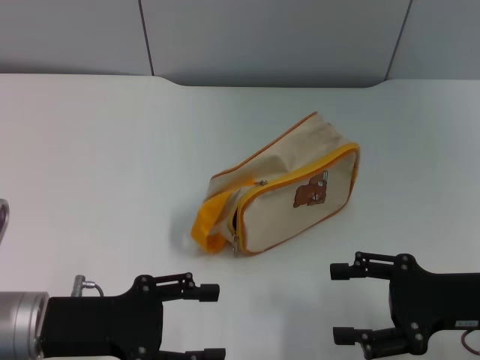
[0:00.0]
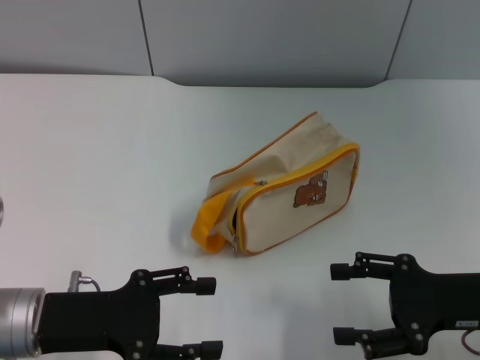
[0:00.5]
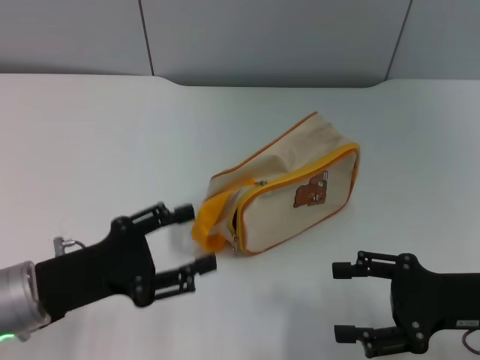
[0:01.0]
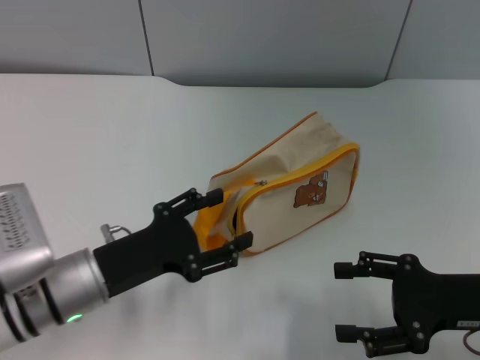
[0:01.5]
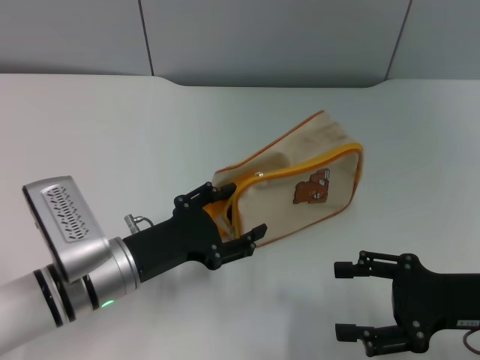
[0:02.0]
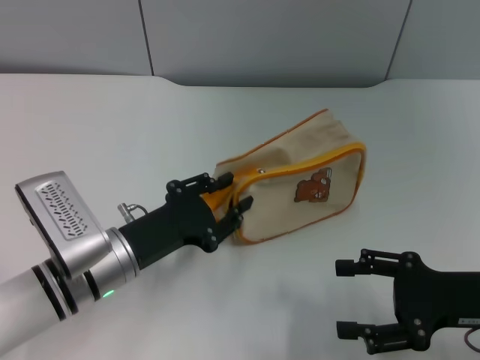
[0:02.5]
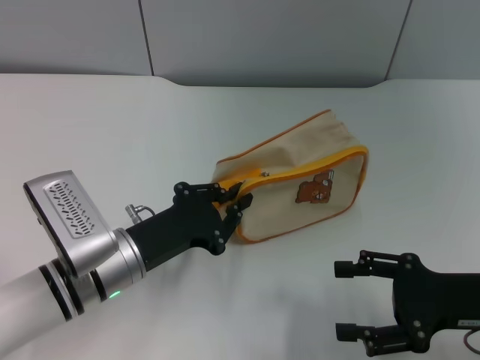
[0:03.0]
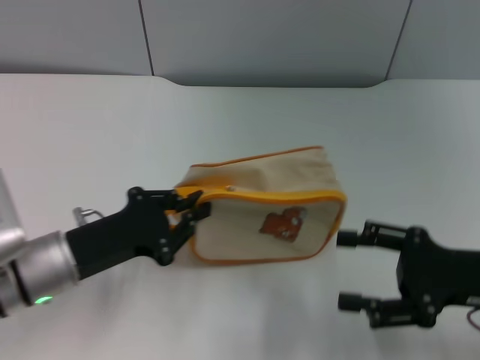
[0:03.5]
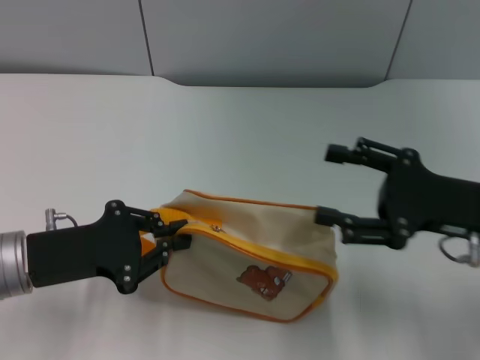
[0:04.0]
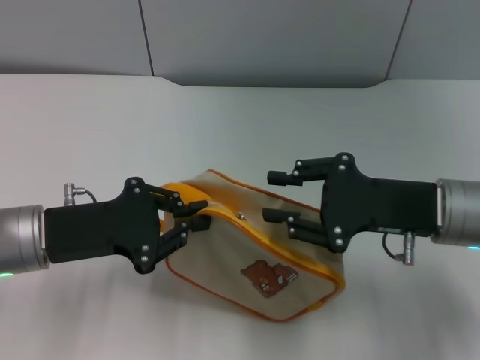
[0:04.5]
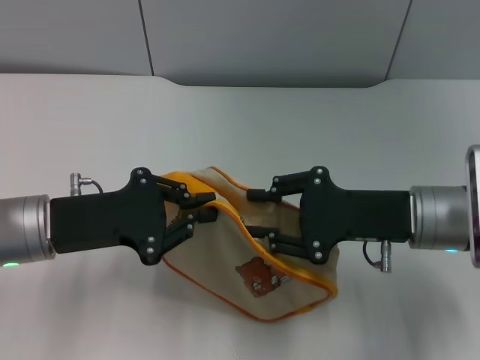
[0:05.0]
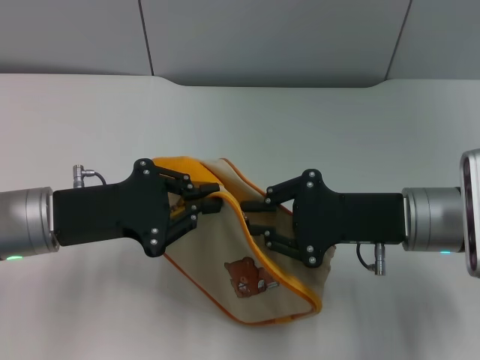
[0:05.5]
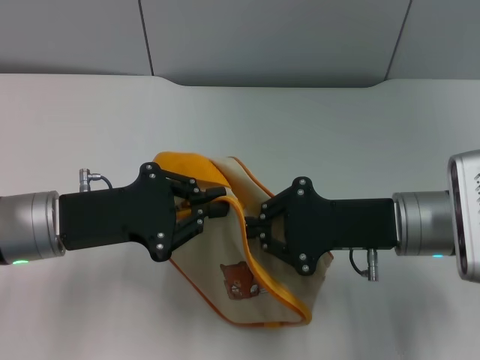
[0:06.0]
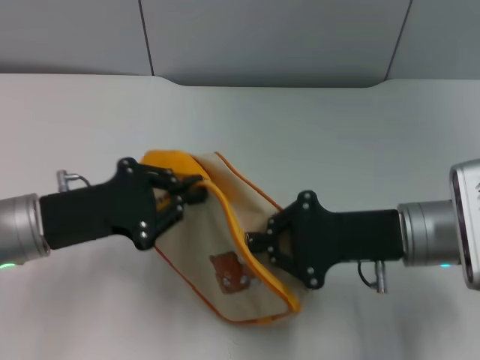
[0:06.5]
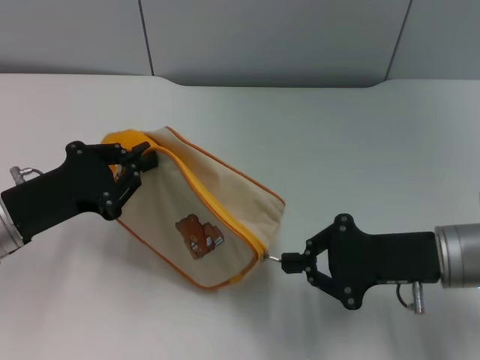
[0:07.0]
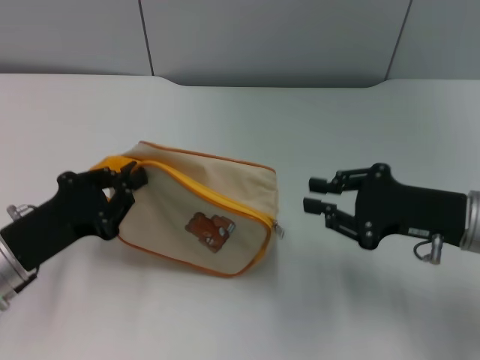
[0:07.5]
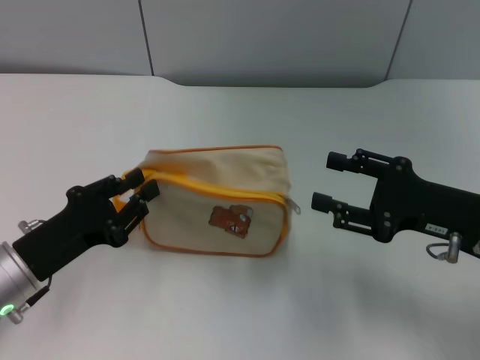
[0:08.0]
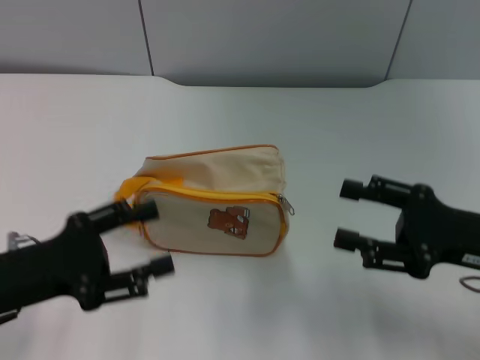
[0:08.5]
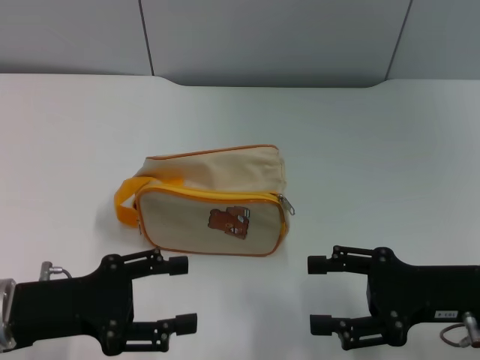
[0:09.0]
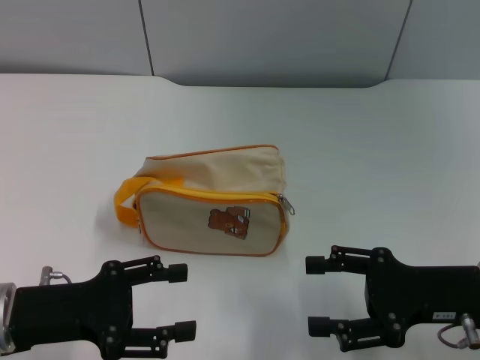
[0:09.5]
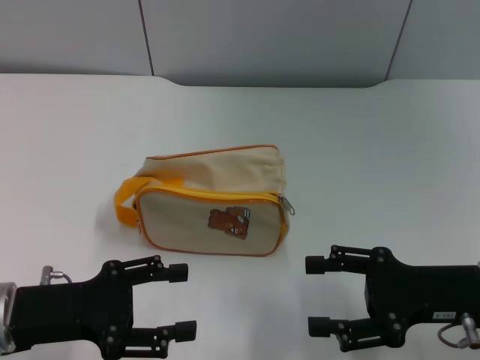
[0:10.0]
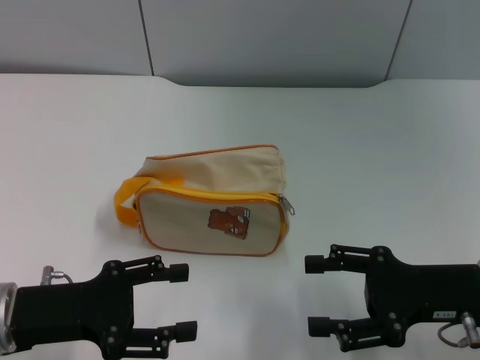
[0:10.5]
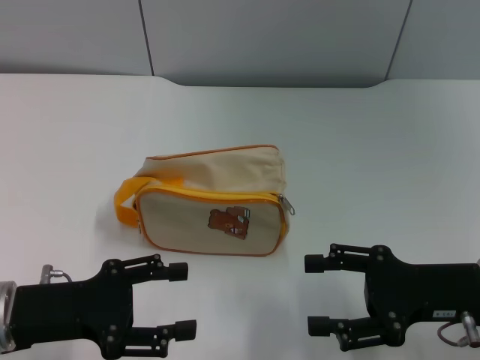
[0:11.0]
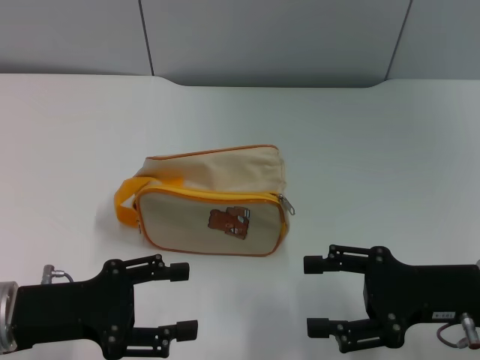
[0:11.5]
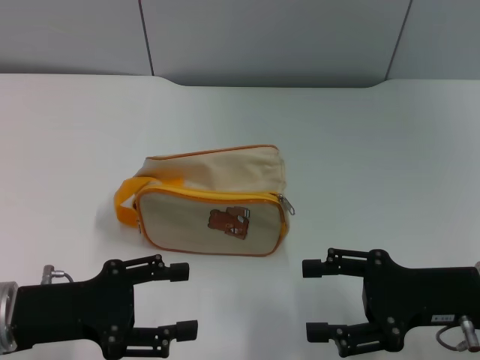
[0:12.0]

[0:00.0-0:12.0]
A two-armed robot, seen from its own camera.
Step, 0:00.0 to 0:04.0: Pick up the bag with left gripper.
Step, 0:04.5 to 0:07.5: Unzip the zipper of bag with right gripper.
0:00.0 to 0:02.0: The left gripper moves to the right, approximately 5 cm.
0:02.0 to 0:04.0: The left gripper goes approximately 10 cm to the left and upward, and closes up; the right gripper moves roughly 5 cm.
0:04.0 to 0:06.0: The right gripper is displaced to the left by approximately 10 cm, and closes its fingers.
0:06.0 to 0:08.0: The left gripper shifts some 5 cm downward. The right gripper goes some 10 cm to the right, and opens.
0:08.0 to 0:10.0: The left gripper opens its fingers.
0:10.0 to 0:12.0: Neither gripper changes place.

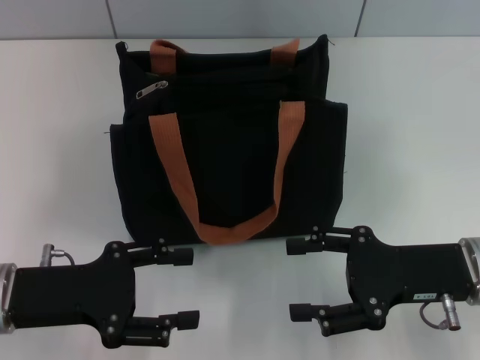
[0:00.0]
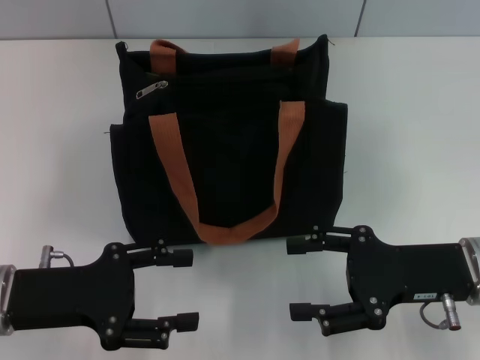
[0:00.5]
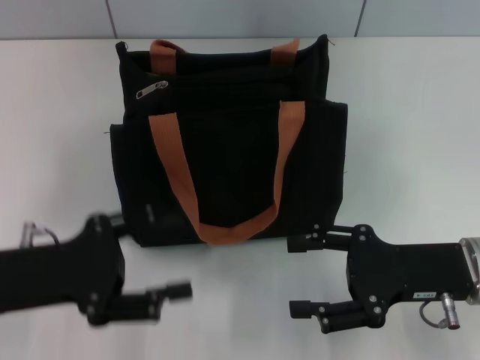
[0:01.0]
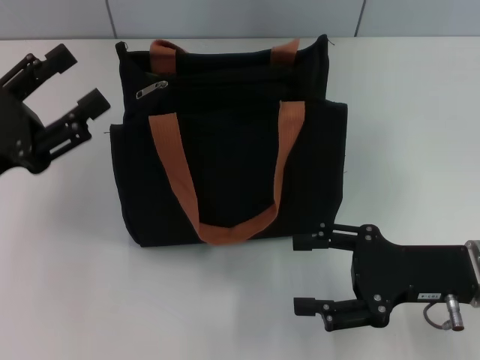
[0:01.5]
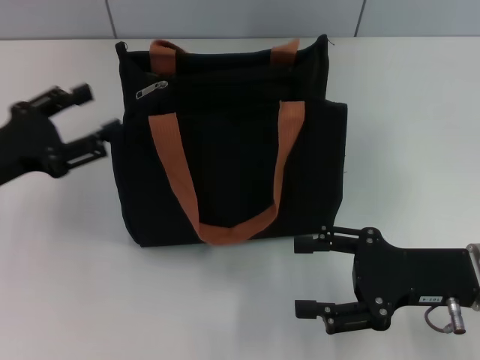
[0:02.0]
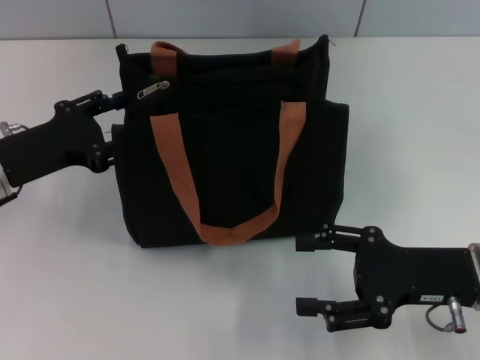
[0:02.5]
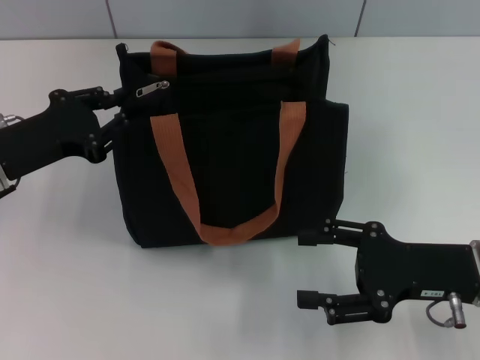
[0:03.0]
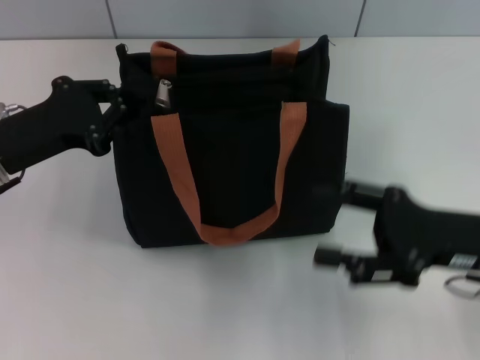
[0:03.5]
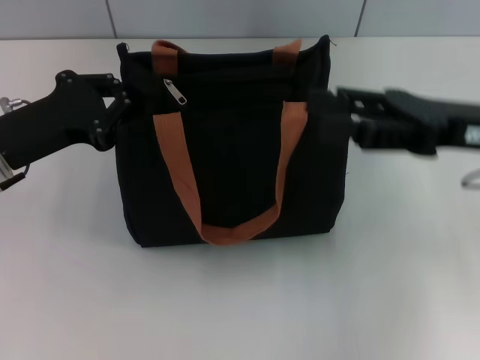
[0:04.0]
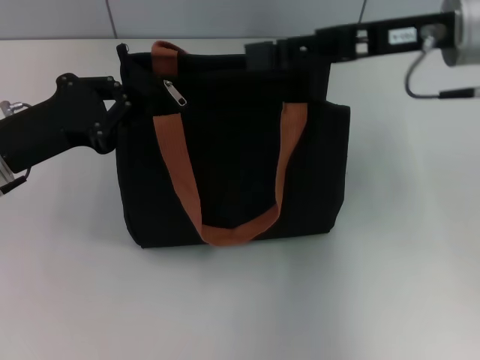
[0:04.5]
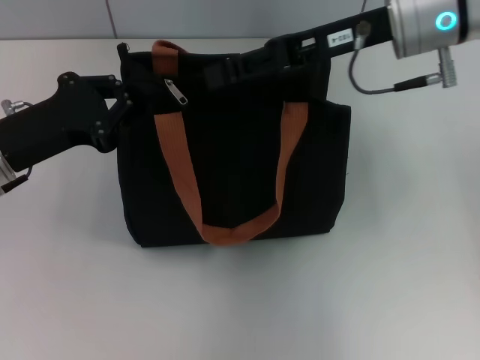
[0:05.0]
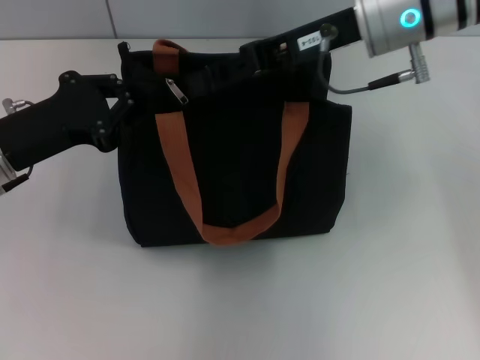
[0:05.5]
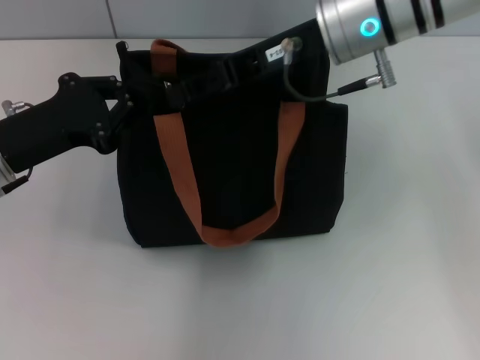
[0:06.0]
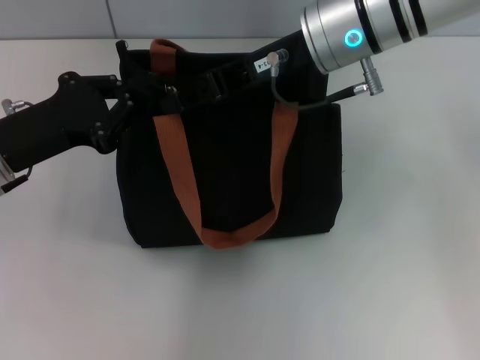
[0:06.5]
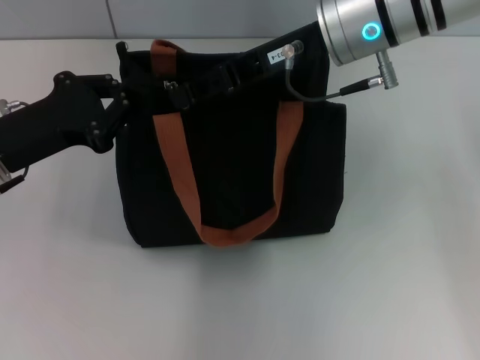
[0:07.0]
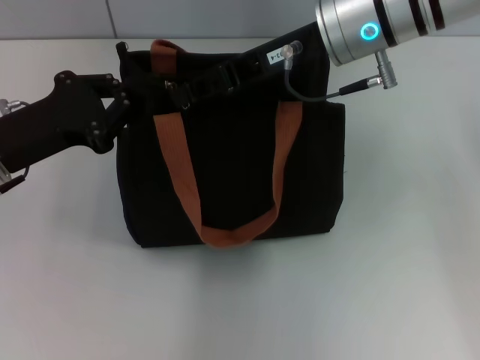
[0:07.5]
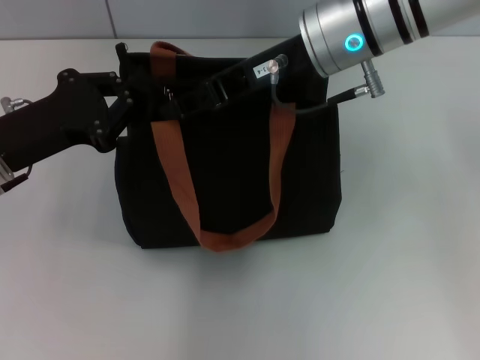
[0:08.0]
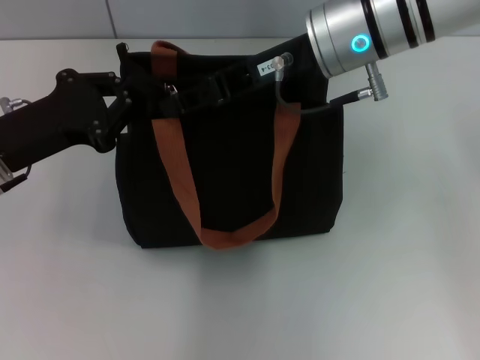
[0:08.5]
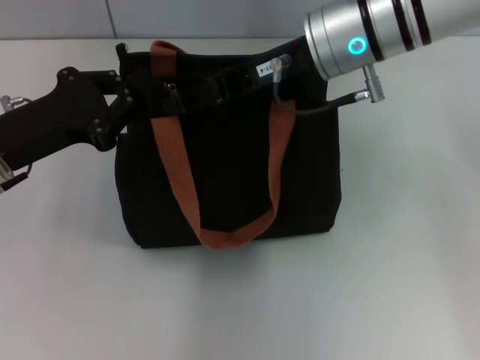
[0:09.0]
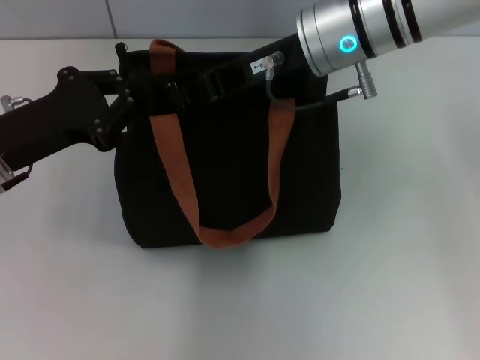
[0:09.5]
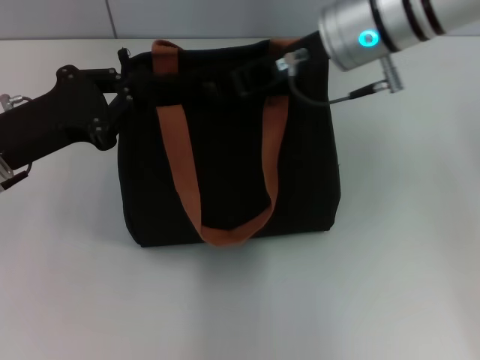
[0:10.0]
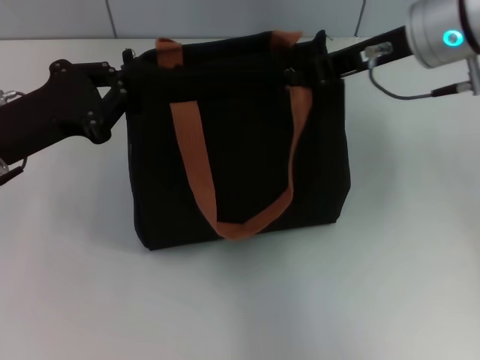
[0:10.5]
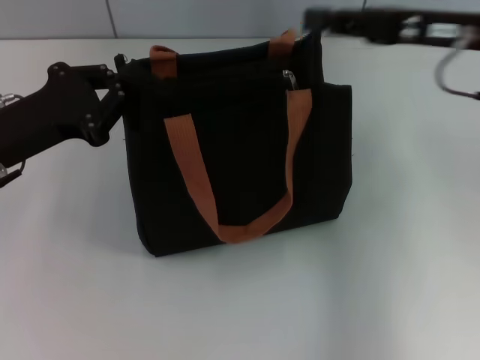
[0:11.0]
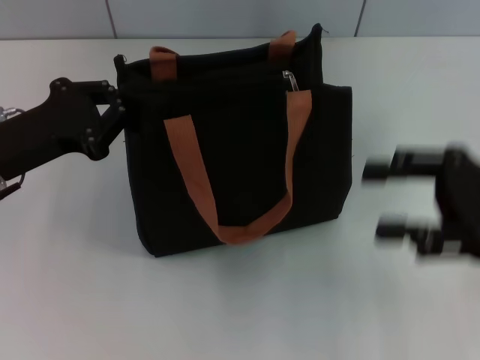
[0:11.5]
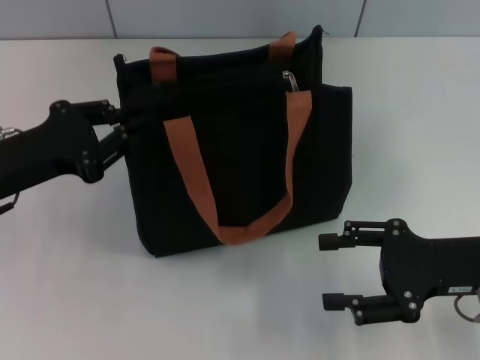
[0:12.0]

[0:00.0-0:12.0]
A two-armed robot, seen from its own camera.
Step, 0:00.0 to 0:10.5: Pull up the zipper with your right hand.
0:00.0 to 0:02.0: The left gripper heads forward, covering some 5 cm.
0:02.0 to 0:04.0: The left gripper closes up. The right gripper heads upward and forward, covering about 10 cm.
0:04.0 to 0:06.0: The right gripper moves to the left and forward, some 15 cm, and closes.
0:06.0 to 0:10.0: The grippers stay close to where they were, moving slightly.
0:10.0 to 0:12.0: The right gripper shifts some 25 cm backward, to the right and downward, and opens up.

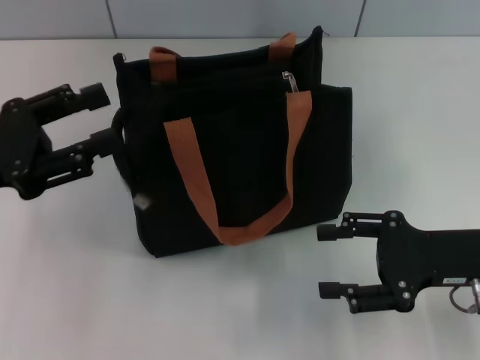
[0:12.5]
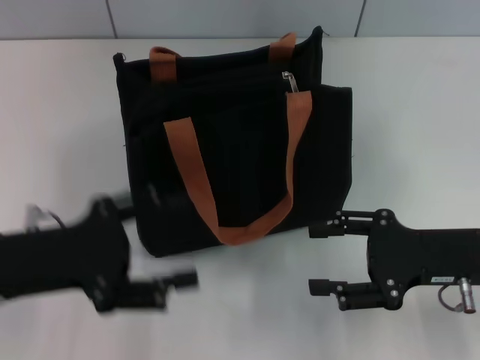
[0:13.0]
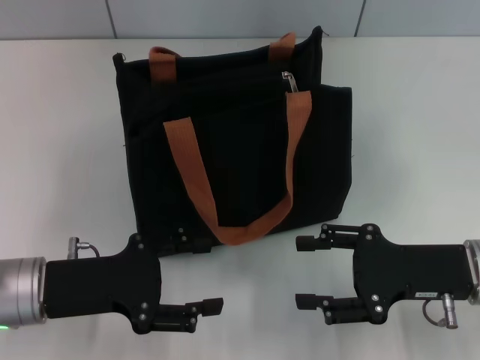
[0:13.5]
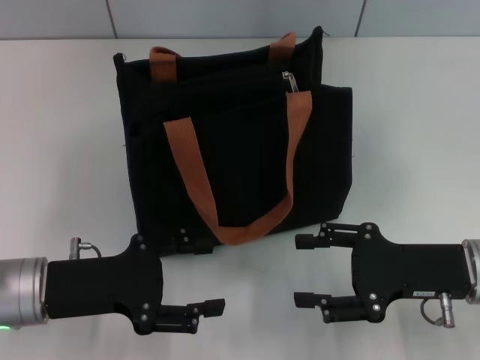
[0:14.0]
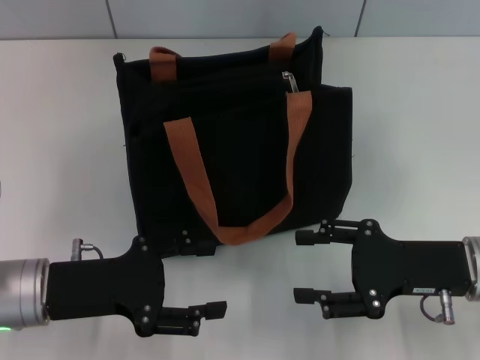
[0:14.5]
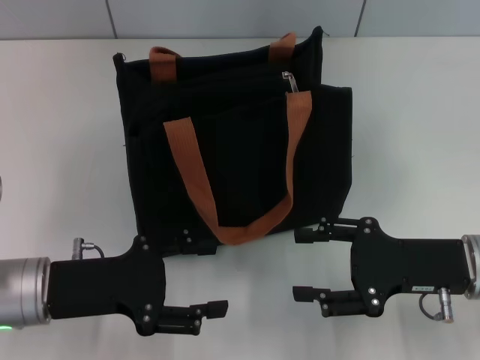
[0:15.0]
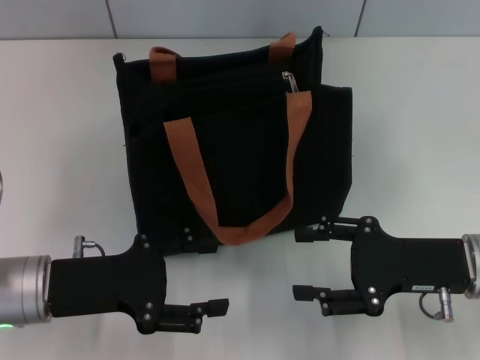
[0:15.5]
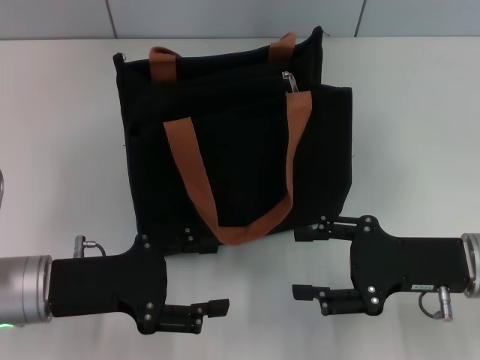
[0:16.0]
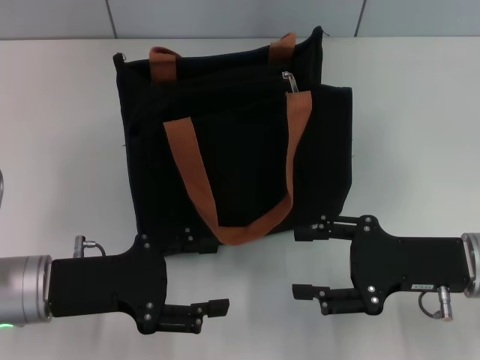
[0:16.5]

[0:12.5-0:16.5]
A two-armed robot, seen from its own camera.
0:12.5 to 0:14.5: The left gripper heads downward and to the right, covering some 10 cm, and opens up.
0:14.5 to 0:16.5: Neither gripper changes place.
